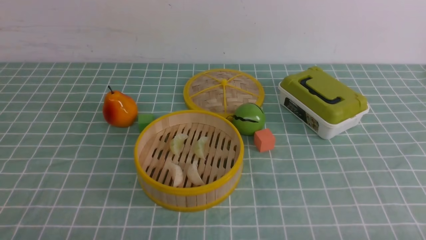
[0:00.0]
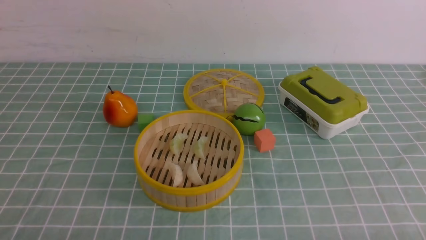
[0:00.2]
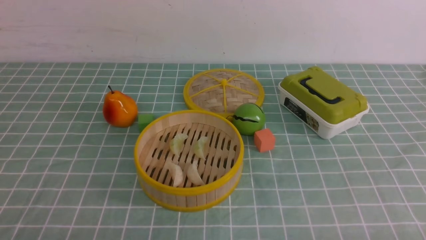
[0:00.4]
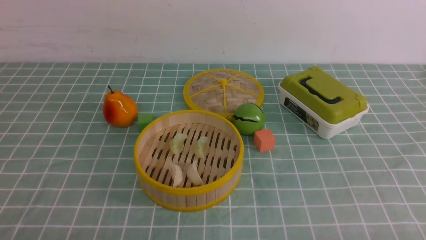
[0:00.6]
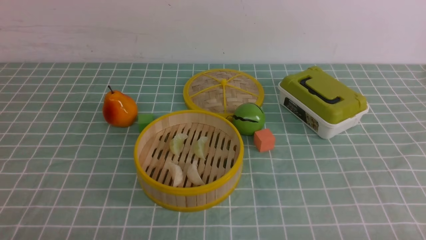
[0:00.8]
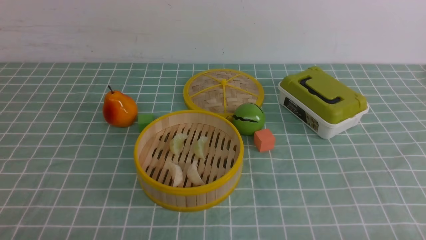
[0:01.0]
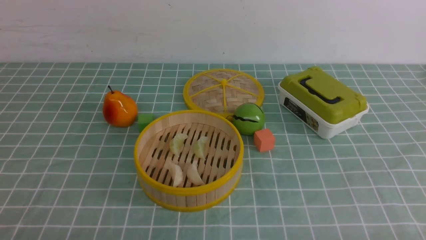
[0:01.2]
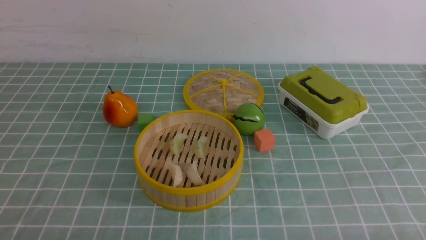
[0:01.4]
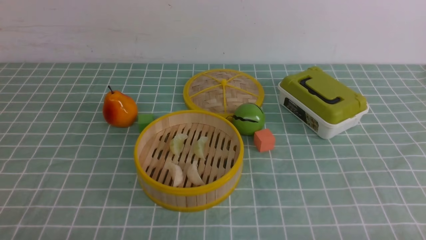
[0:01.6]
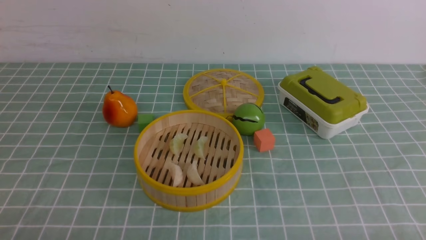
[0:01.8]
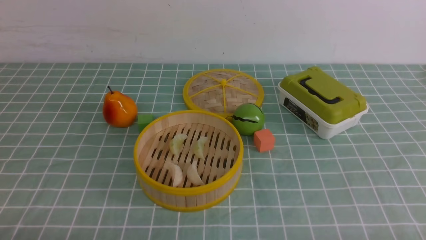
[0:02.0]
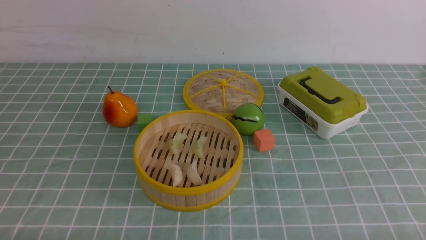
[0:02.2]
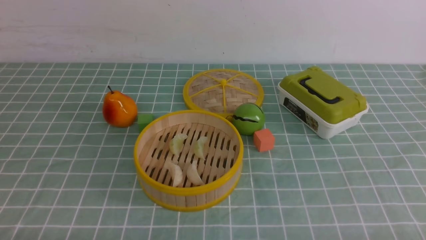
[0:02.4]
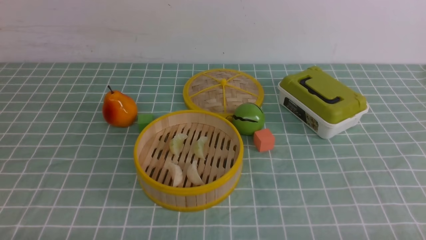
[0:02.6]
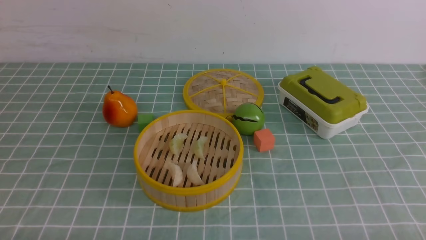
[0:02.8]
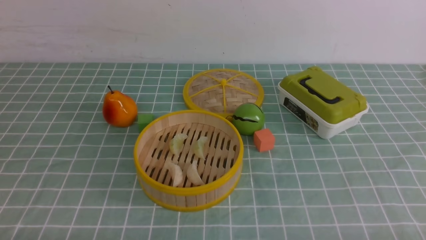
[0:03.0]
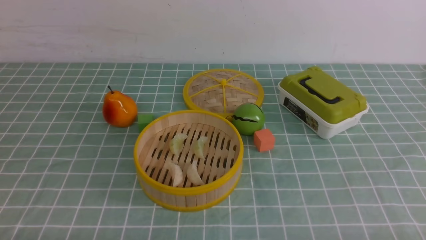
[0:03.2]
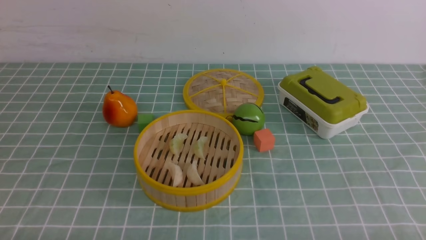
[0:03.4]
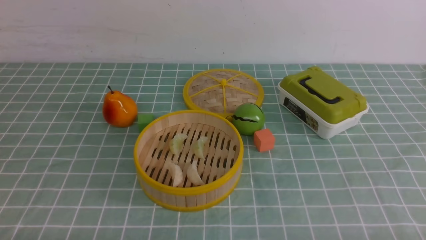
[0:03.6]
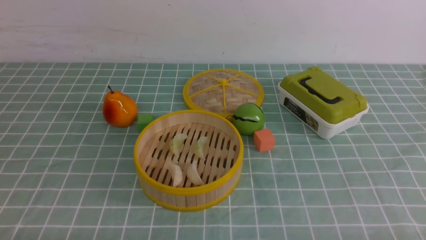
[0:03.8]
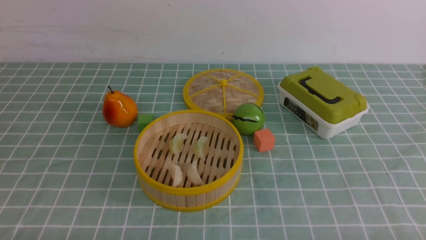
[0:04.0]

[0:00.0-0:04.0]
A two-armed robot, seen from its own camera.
Task of the whole recording: put the dumplings into the steamer on the table with the blue tablecloth.
0:00.0 to 0:01.4: The two grippers keep their place.
0:02.6 to 0:04.0: Neither gripper changes place.
